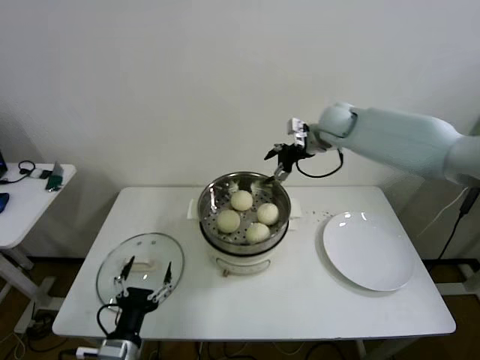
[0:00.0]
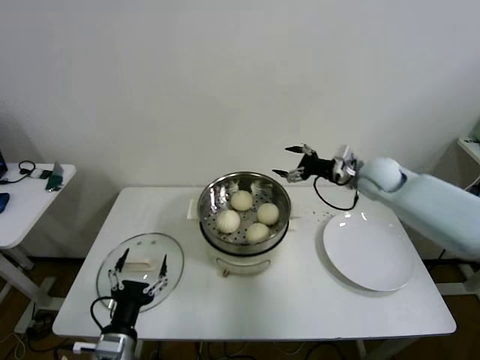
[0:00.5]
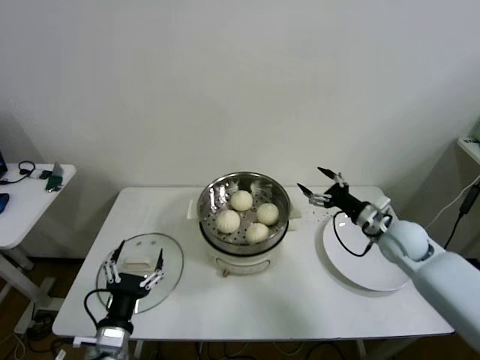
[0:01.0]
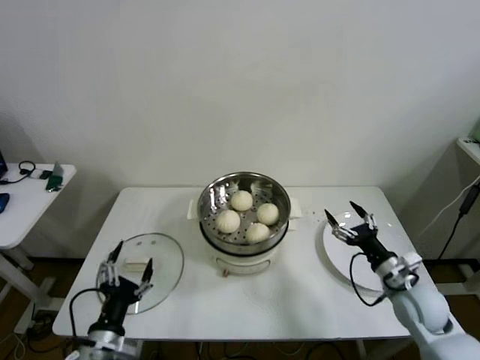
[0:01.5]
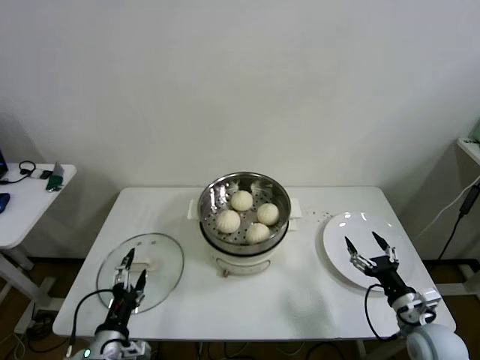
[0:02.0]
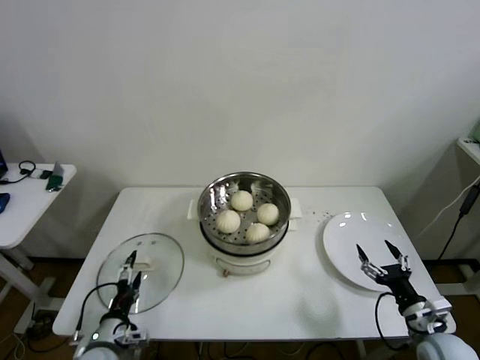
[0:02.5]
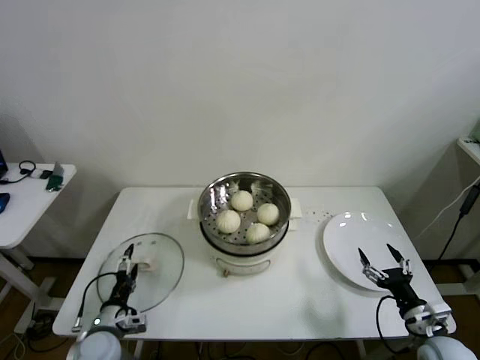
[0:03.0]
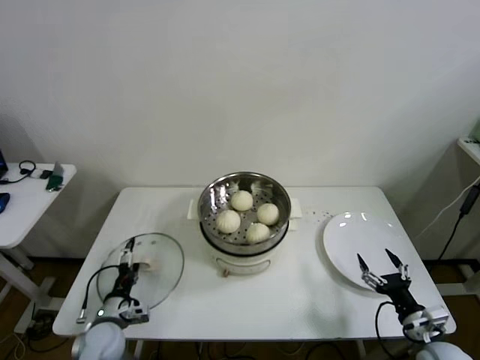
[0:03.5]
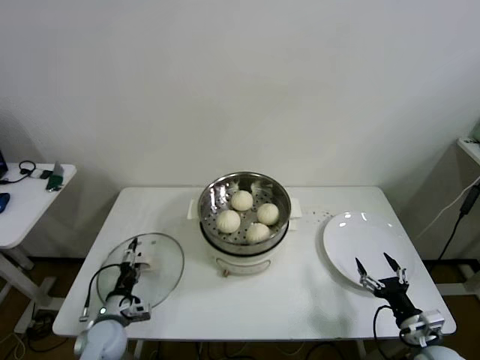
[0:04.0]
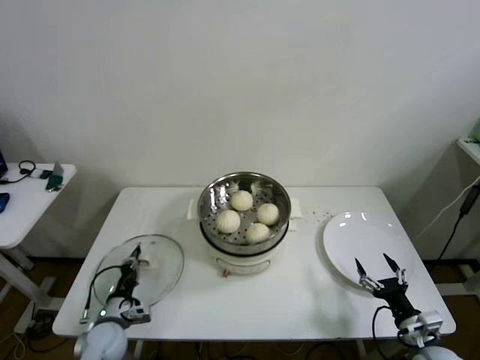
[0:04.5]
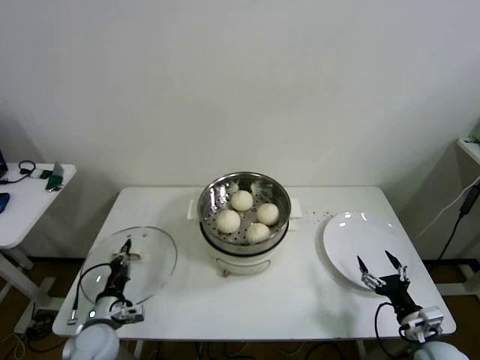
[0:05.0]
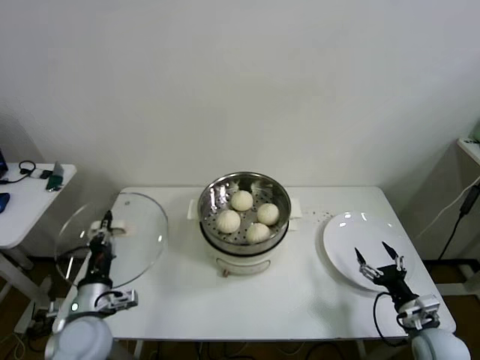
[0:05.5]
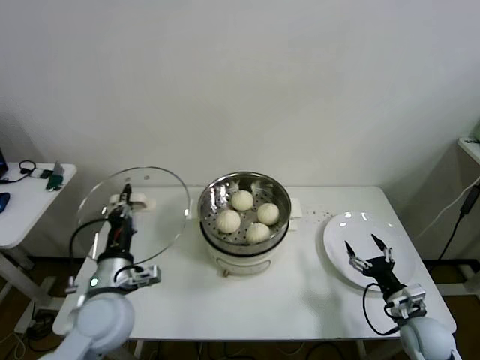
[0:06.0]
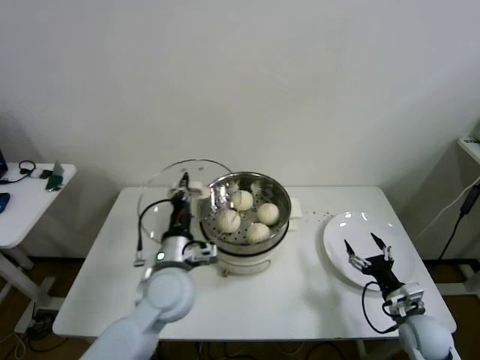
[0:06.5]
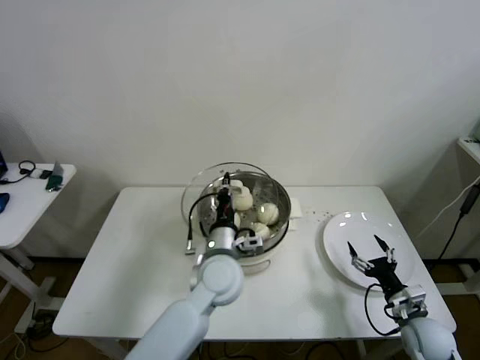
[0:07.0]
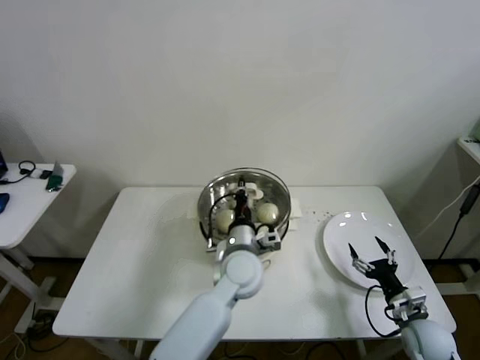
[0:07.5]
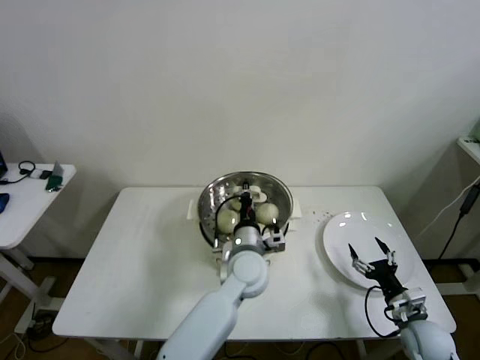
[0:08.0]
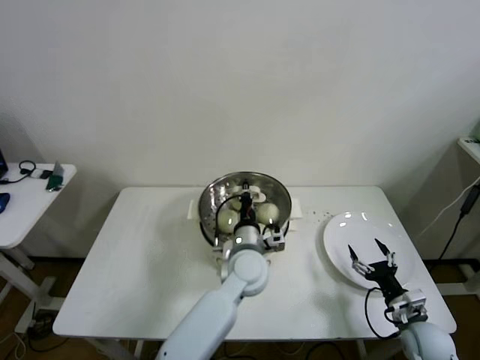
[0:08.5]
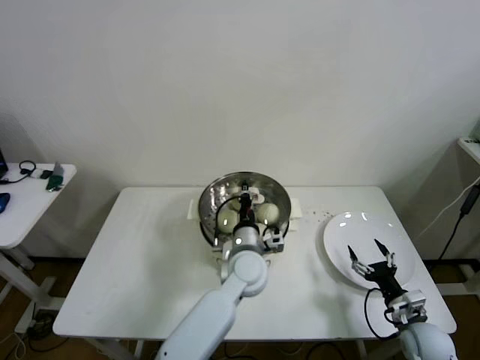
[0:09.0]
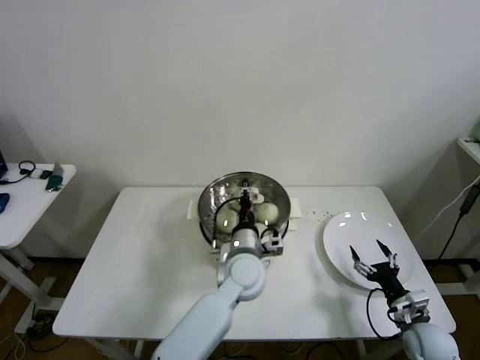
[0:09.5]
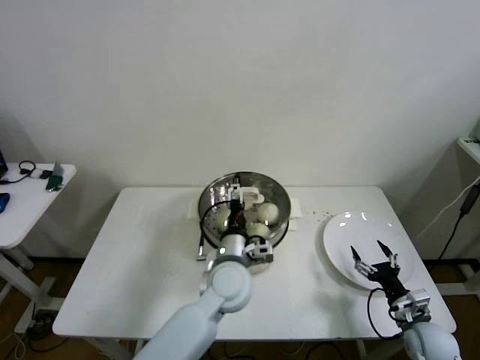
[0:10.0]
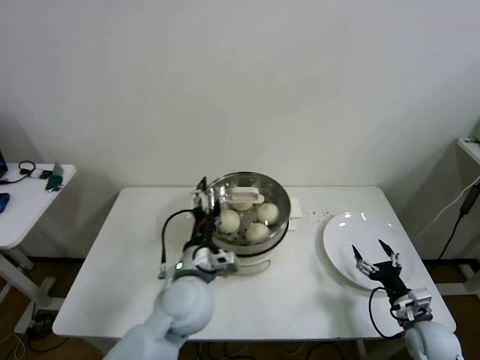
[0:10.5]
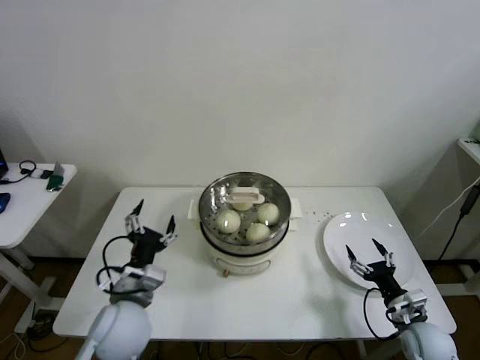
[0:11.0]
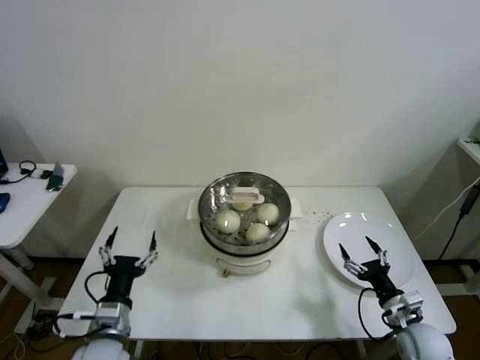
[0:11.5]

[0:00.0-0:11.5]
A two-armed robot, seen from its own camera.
Step, 0.0 to 4.5 s: Grasp the pot lid with left gripper.
Step, 5.0 to 9.0 s: Place the pot lid on the steamer with left gripper.
0.0 to 2.0 s: The right gripper heads backward, downward and to the right, covering some 50 cm.
2.0 to 4.0 s: The left gripper moves forward, downward and to the left, some 15 cm. Meanwhile the right gripper shifts by about 5 cm.
4.0 to 6.0 s: The left gripper heads upward, covering roughly 20 cm, and closes, while the right gripper heads forward, covering about 5 cm.
6.0 to 7.5 s: The left gripper heads to the right and forward, covering some 25 cm.
7.5 to 9.5 s: There are only small adjustments of the grippers.
9.5 to 11.5 s: The left gripper heads to the left and backward, covering roughly 30 cm, and opens.

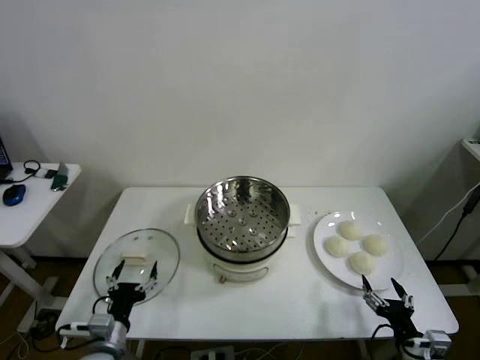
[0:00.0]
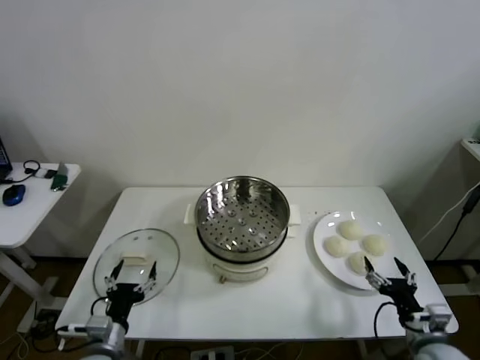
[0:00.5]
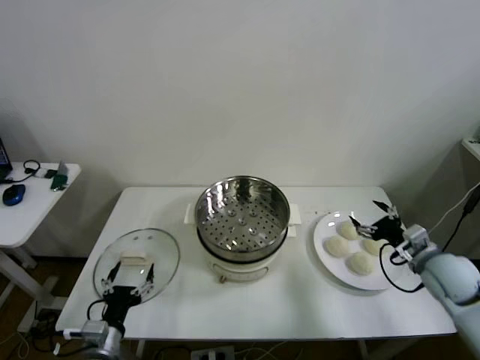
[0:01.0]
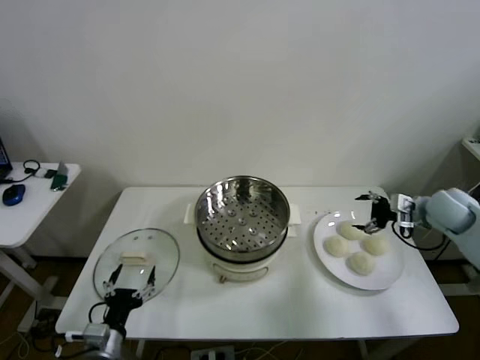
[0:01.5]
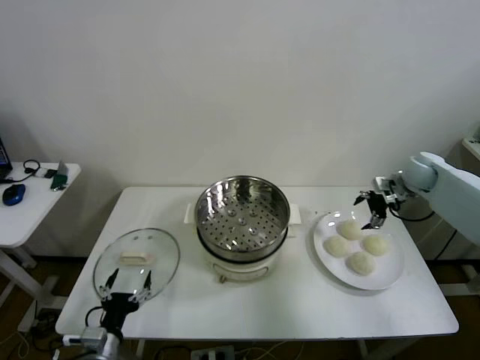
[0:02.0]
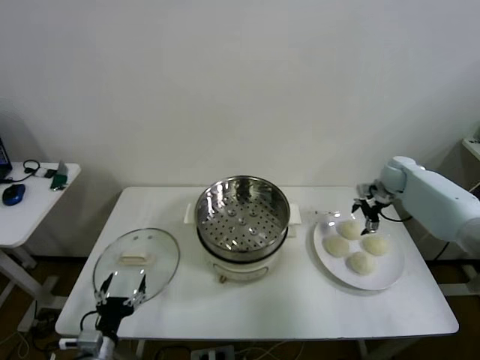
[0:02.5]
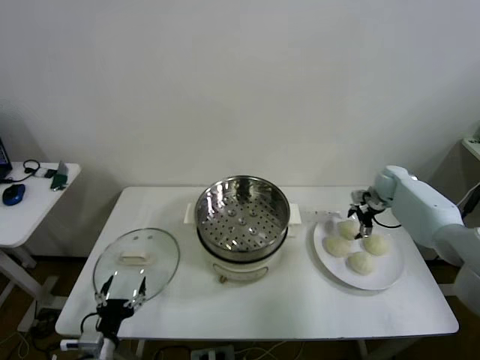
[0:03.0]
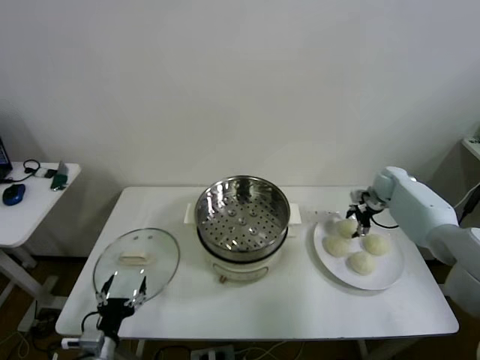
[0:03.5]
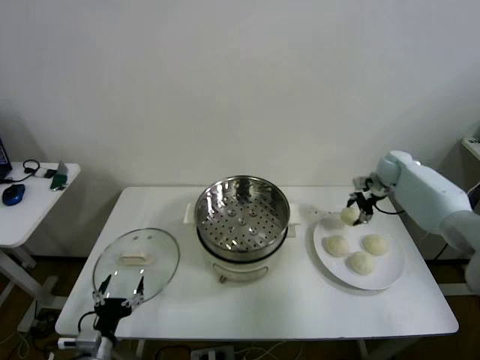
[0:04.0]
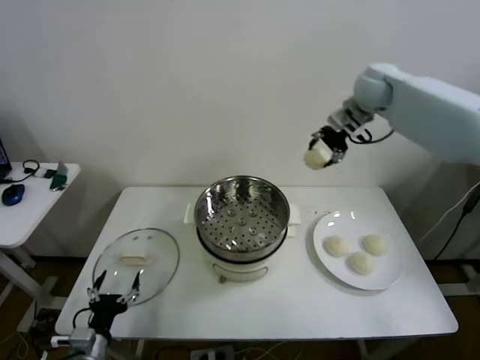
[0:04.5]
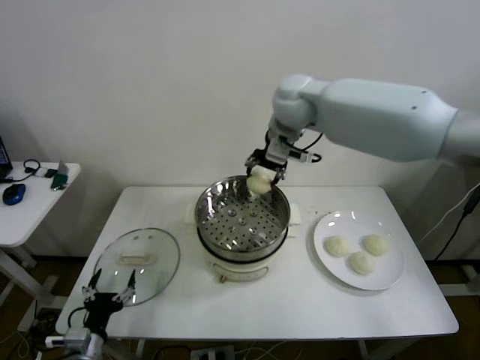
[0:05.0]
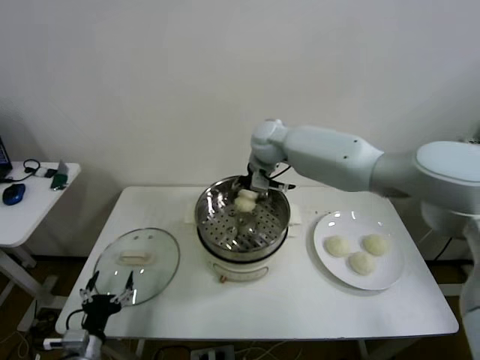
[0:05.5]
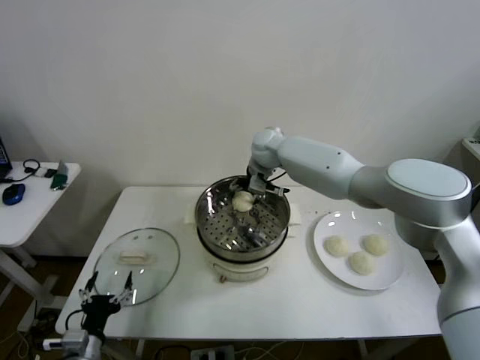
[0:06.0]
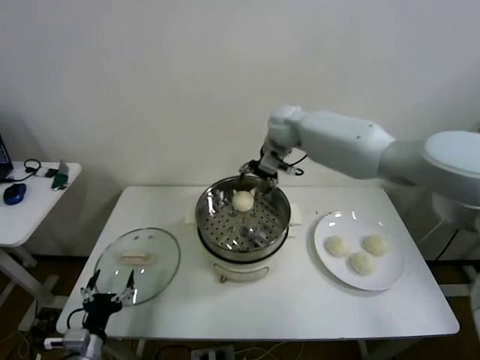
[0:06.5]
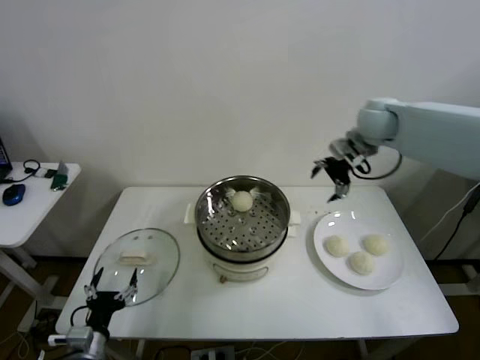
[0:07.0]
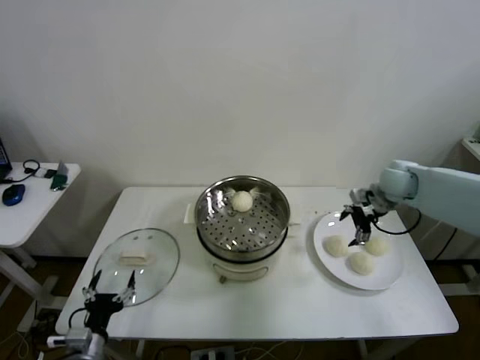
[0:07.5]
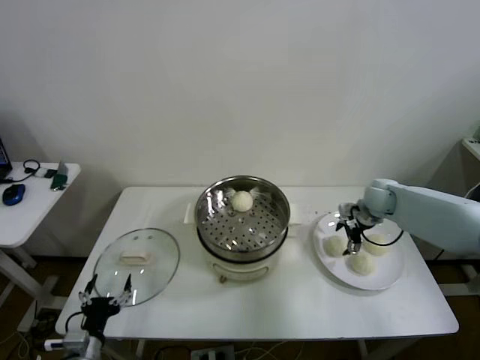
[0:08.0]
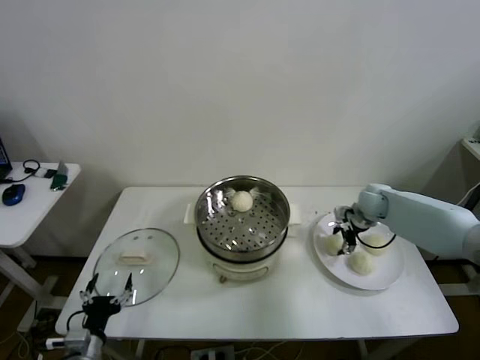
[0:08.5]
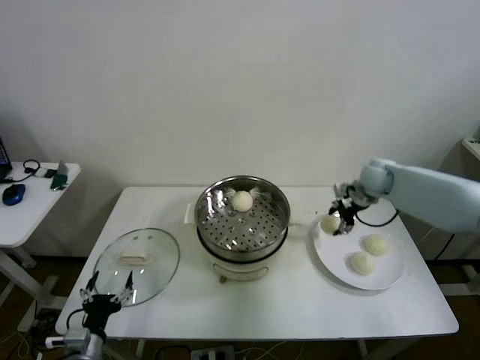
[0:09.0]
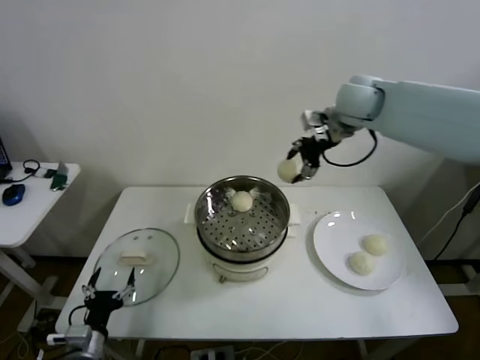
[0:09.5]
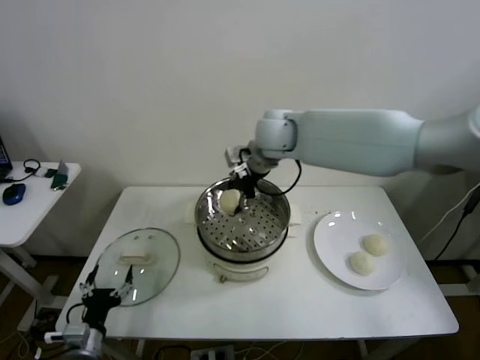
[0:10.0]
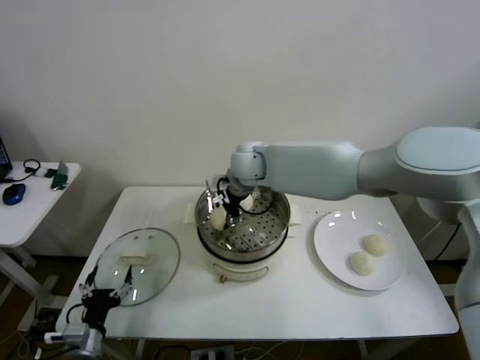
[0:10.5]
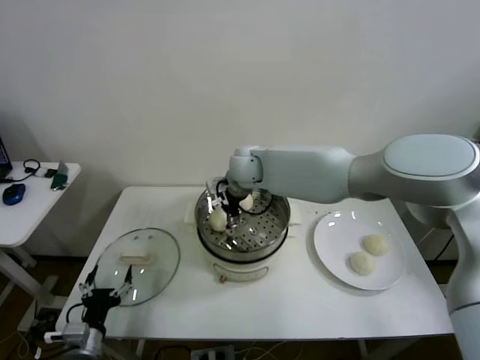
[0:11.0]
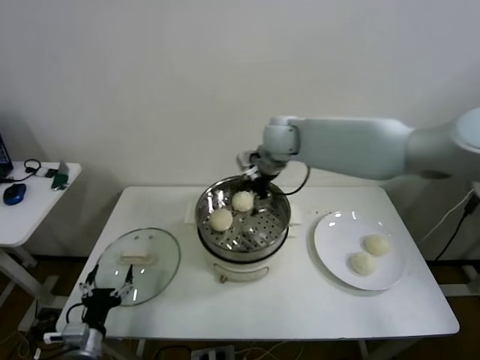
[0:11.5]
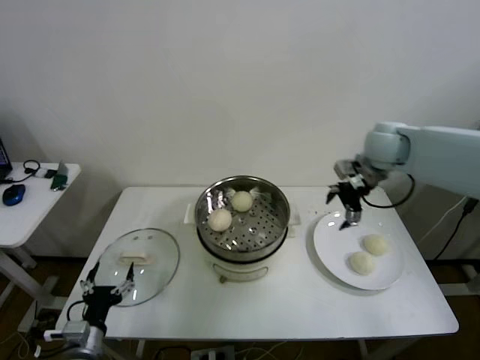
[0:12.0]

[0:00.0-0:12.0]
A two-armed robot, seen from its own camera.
Step, 0.0 to 3.5 s: Grasp the baozi in the plate with right gripper.
Step, 4.0 to 6.0 s: Place the baozi on the steamer with right gripper.
Step, 6.5 to 8.5 s: Grasp the baozi in the plate with right gripper.
Step, 9.0 to 11.0 s: Place the baozi on the steamer with right gripper.
2.0 to 4.0 s: The right gripper heads forward, covering roughly 5 cm, travels downward and back again, approximately 10 cm each way, and closes its fingers.
4.0 to 6.0 s: The right gripper shifts about 35 cm to the left, and opens up.
6.0 to 8.0 s: The right gripper travels to the right by approximately 30 cm.
8.0 to 10.0 s: The right gripper goes roughly 35 cm to the left and upward, and closes its fingers.
10.0 to 12.0 s: The right gripper moves to the right, roughly 30 cm, and opens up.

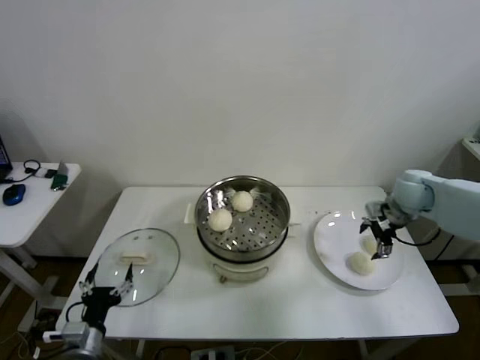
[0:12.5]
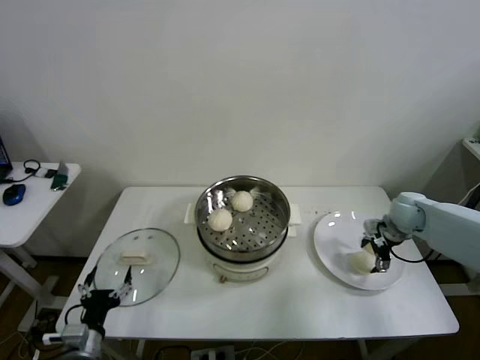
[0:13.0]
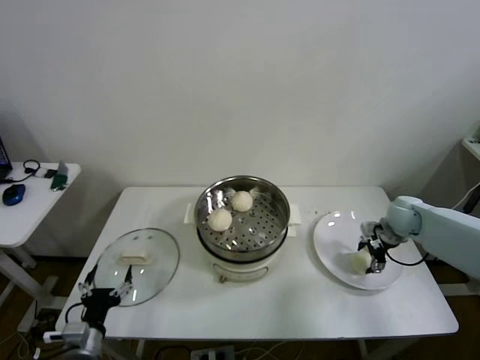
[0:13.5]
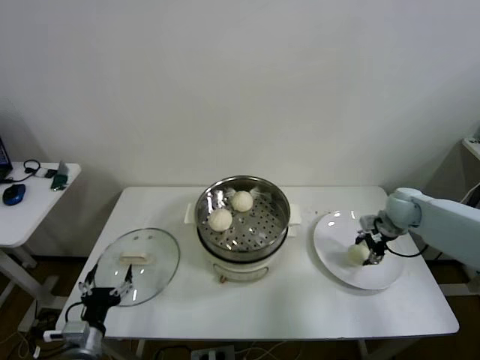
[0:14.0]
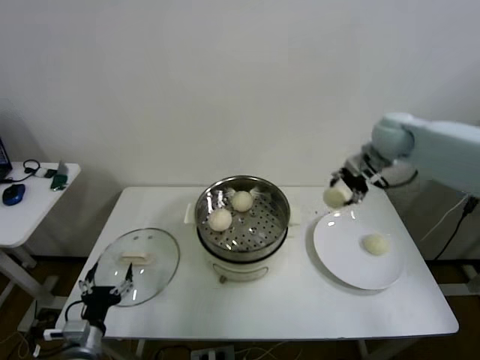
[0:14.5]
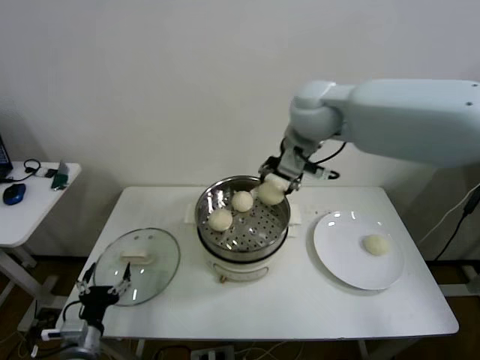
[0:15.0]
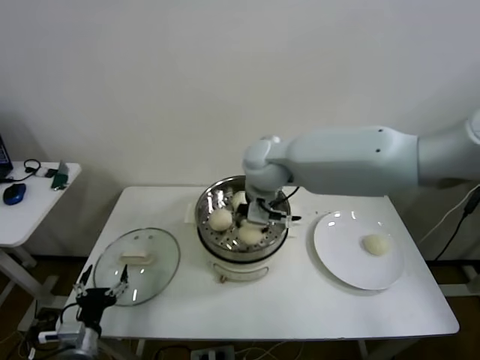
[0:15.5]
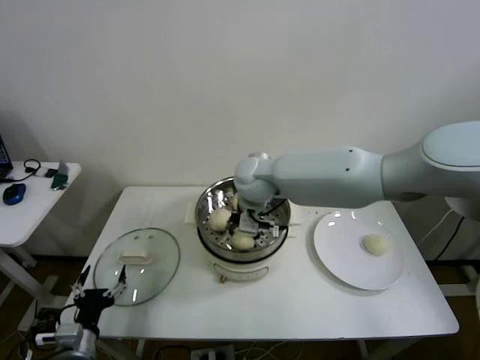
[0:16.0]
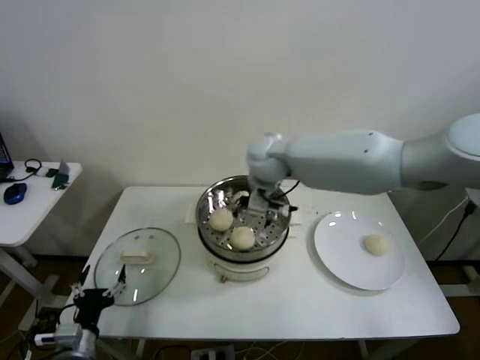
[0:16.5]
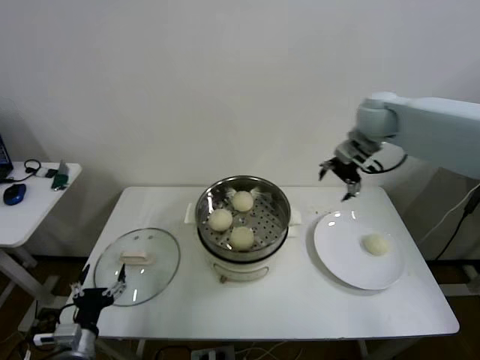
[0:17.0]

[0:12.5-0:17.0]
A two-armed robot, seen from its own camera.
Step, 14.0 to 16.0 s: Place the baozi on the steamer with right gripper.
12.5 to 14.5 s: The right gripper shifts some 20 cm upward and to the left, and closes.
14.5 to 17.0 s: The right gripper moves some 30 cm to the left and comes back, and opens.
